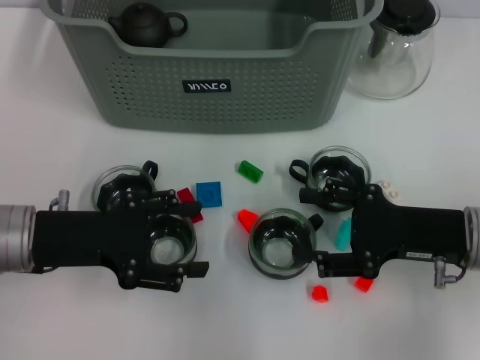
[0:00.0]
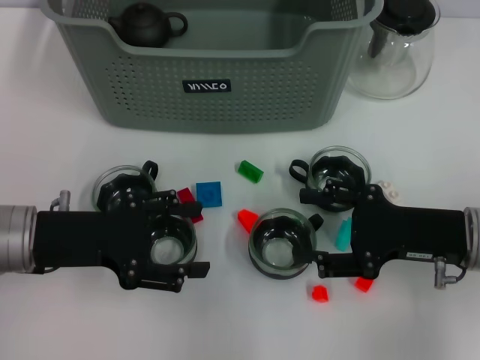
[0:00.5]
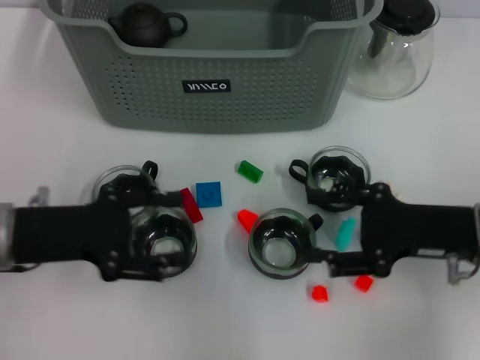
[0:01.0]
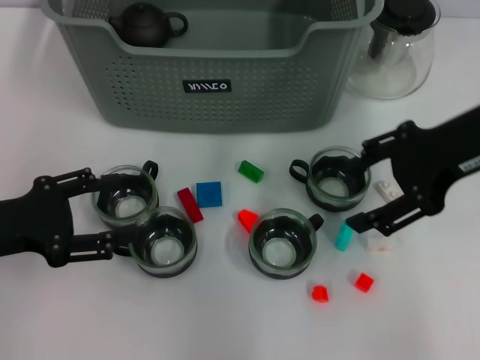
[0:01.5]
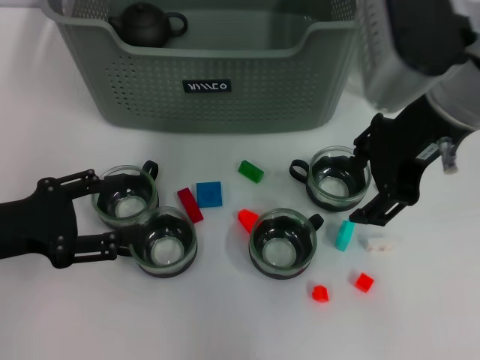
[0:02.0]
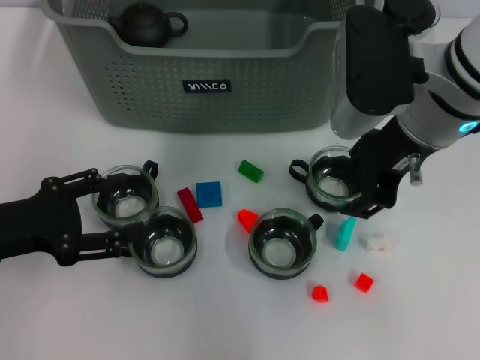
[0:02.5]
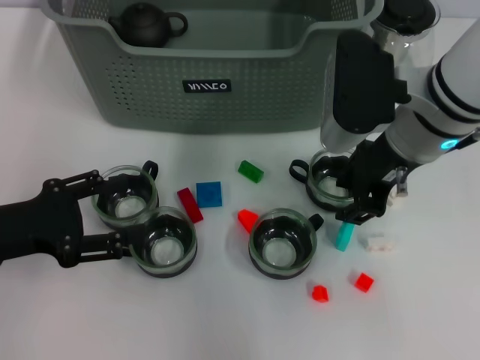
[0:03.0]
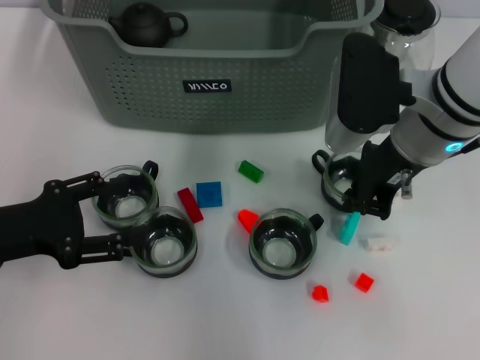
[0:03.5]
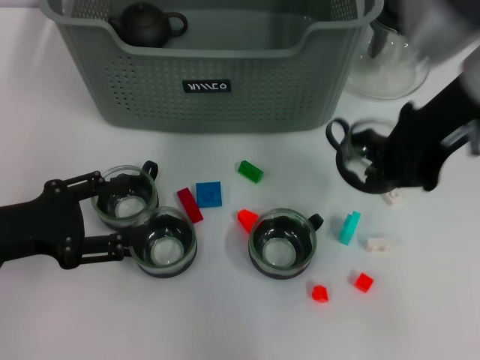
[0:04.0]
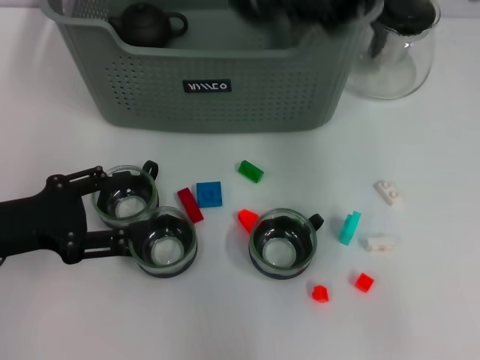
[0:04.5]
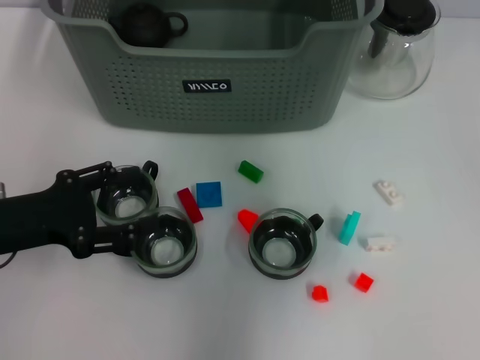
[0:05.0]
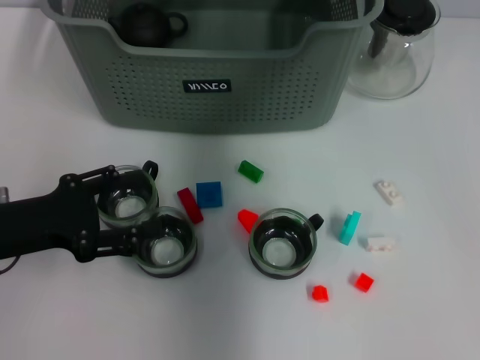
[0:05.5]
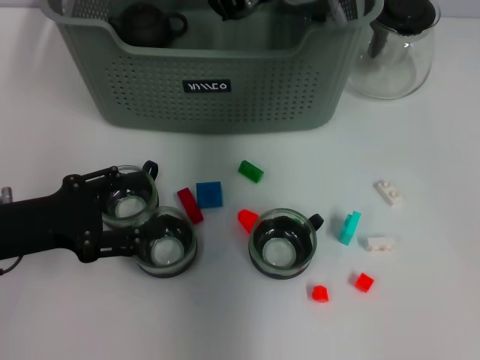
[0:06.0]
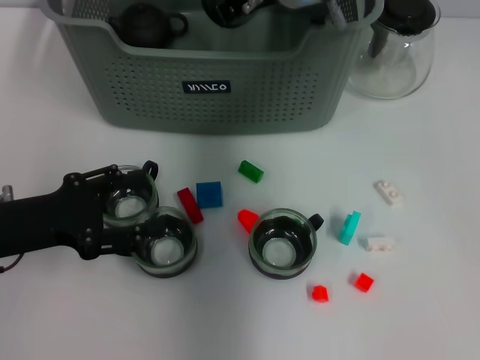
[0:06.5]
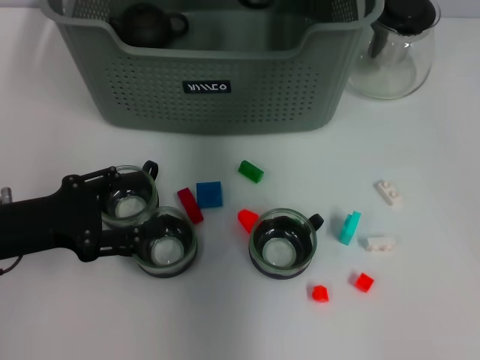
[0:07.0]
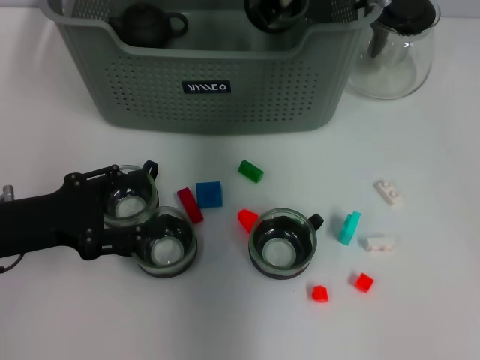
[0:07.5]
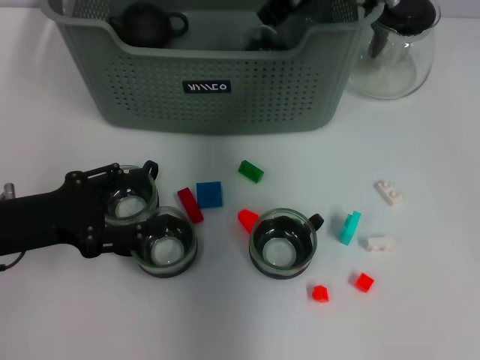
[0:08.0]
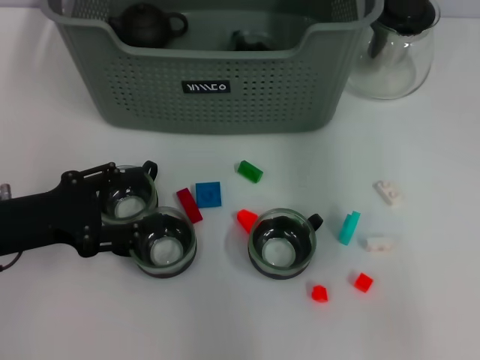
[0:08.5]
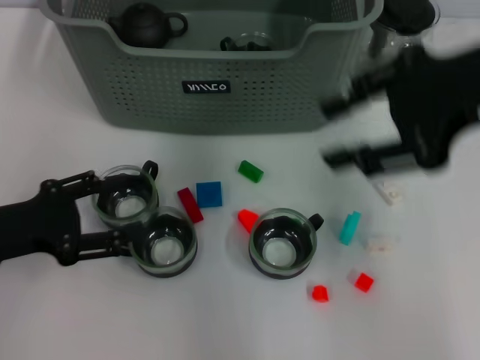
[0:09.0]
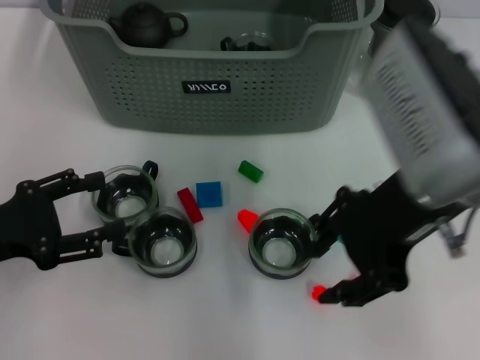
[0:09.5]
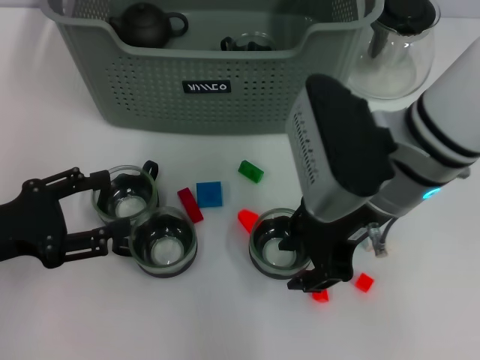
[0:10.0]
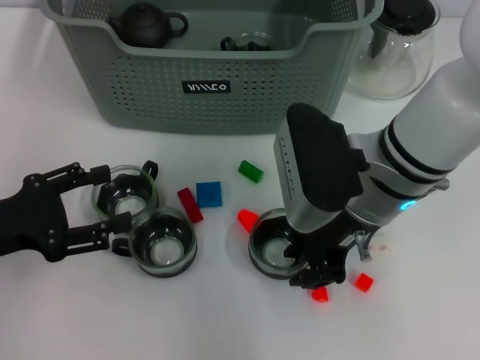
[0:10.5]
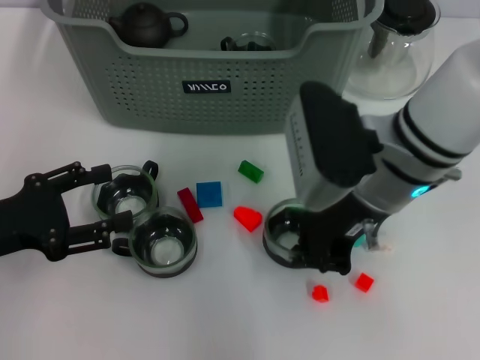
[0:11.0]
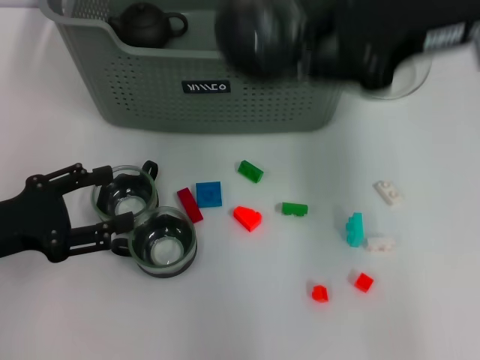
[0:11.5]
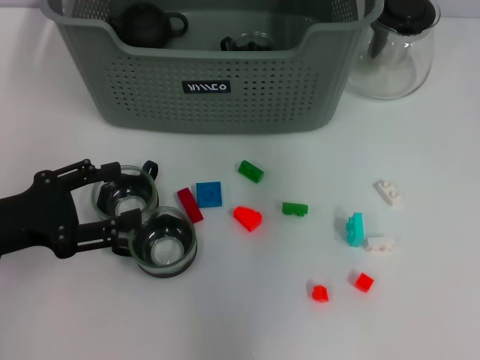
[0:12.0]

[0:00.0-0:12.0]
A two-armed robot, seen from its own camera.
Task of the whole recording: pick up the teacup on the table and place it into the storage bin, pick up the block on the table and place it into the storage bin.
Step, 0:00.0 to 0:03.5: Grasp the cup with right gripper.
Step, 0:04.0 to 0:08.0: Place the cup in the storage box with right gripper.
Step, 0:08.5 to 0:10.5: Grasp the cup with right gripper.
0:00.0 to 0:02.0: The left gripper is displaced to the left by roughly 5 cm. Meanwhile the right gripper is displaced upward, to the left and forward by about 20 cm.
0:02.0 to 0:04.0: The right gripper reaches about 10 cm downward, then returns, and closes its fingers.
0:04.0 to 0:06.0: The right gripper moves forward, to the left and downward, some 20 cm.
0:06.0 to 0:08.0: The grippers stay close to where they were, moving slightly.
0:08.0 to 0:10.0: The right gripper is displaced backward by approximately 20 cm, and opens its fingers.
0:10.0 to 0:12.0: The right gripper moves upward and forward, roughly 20 cm, and closes.

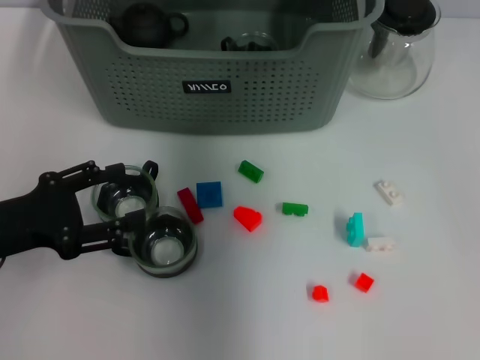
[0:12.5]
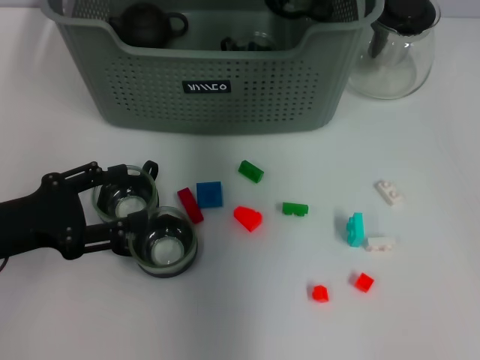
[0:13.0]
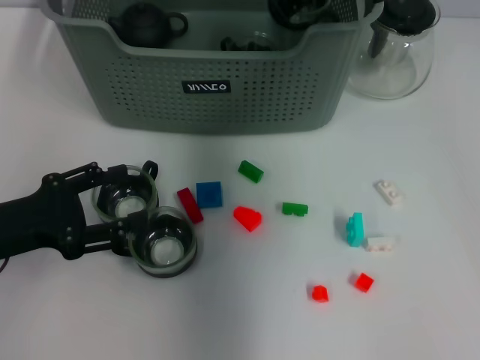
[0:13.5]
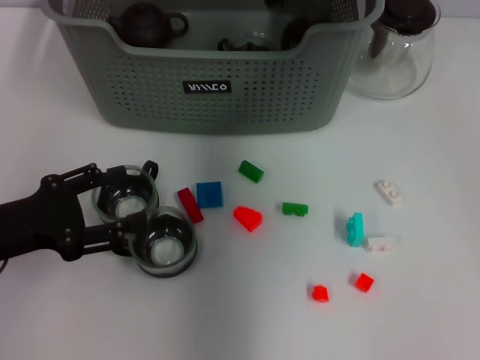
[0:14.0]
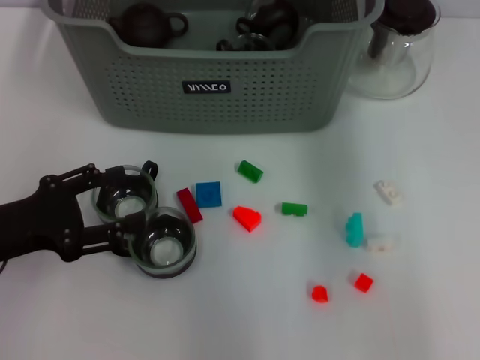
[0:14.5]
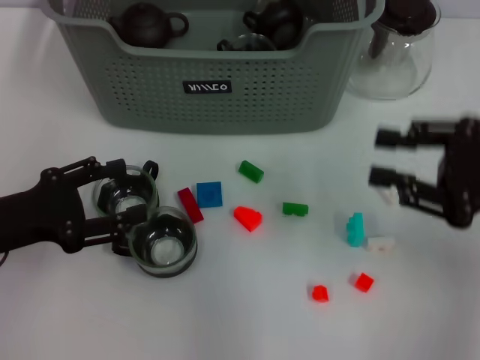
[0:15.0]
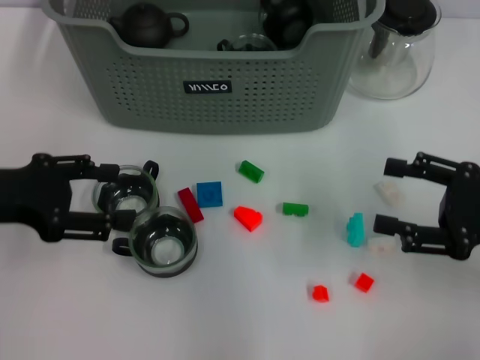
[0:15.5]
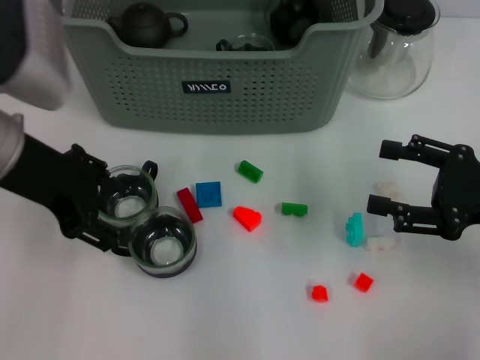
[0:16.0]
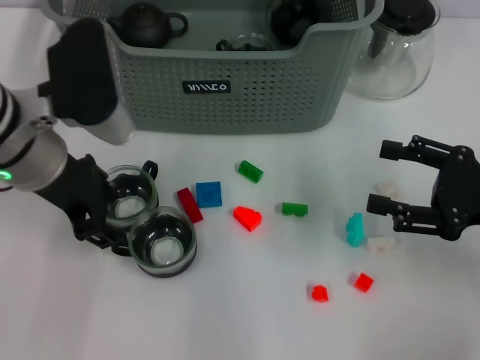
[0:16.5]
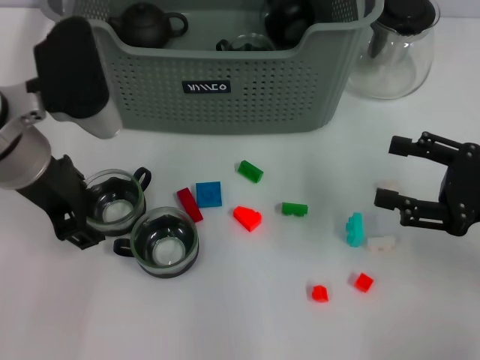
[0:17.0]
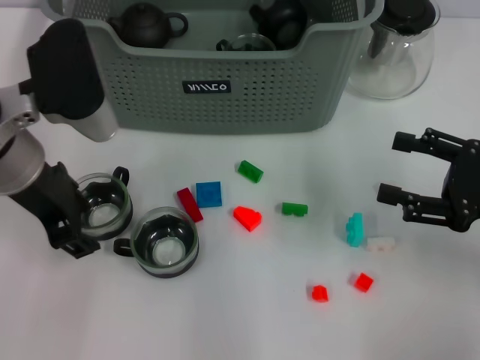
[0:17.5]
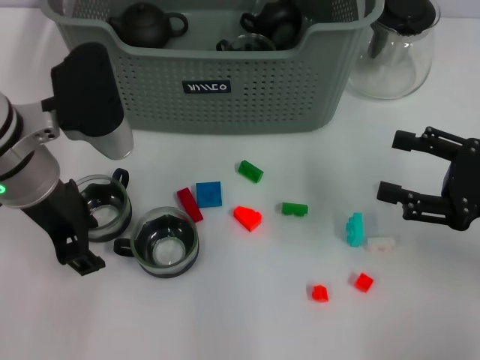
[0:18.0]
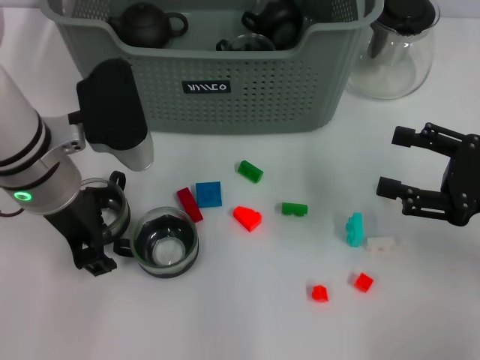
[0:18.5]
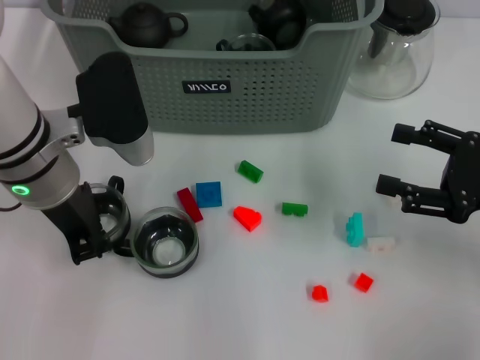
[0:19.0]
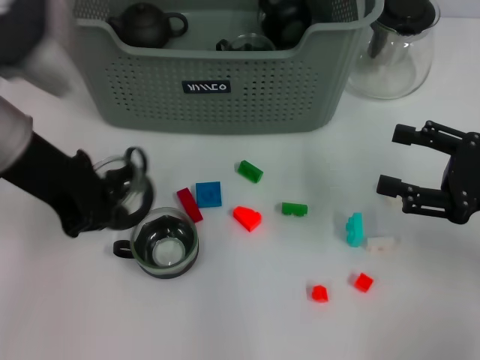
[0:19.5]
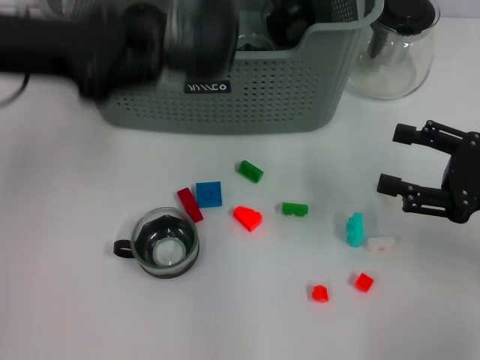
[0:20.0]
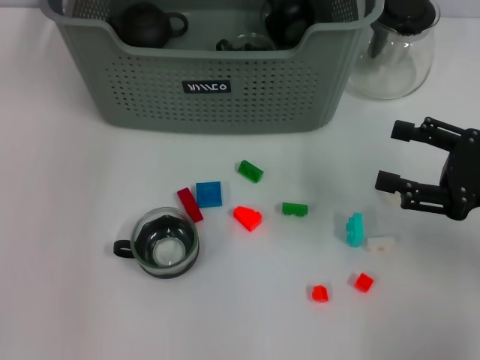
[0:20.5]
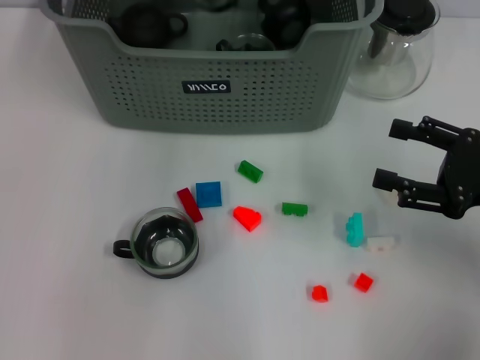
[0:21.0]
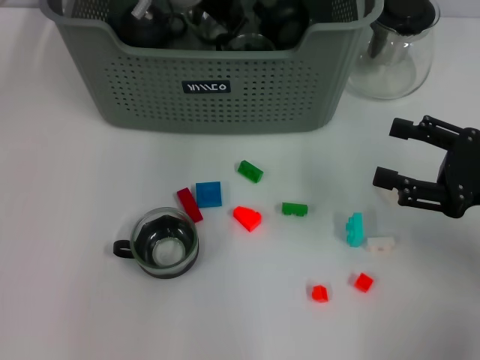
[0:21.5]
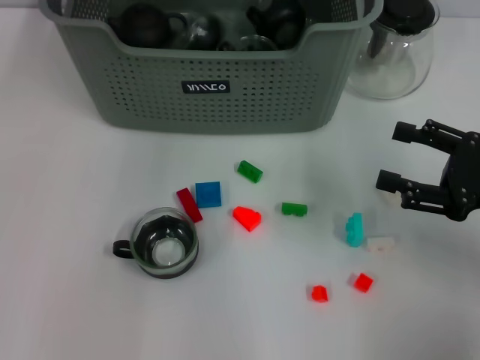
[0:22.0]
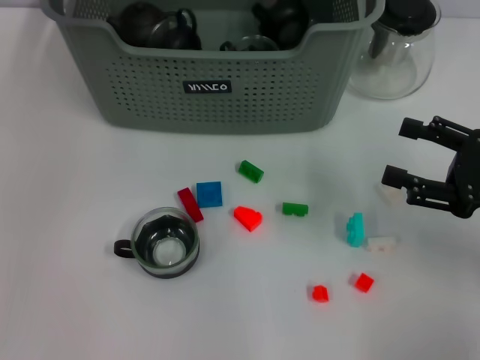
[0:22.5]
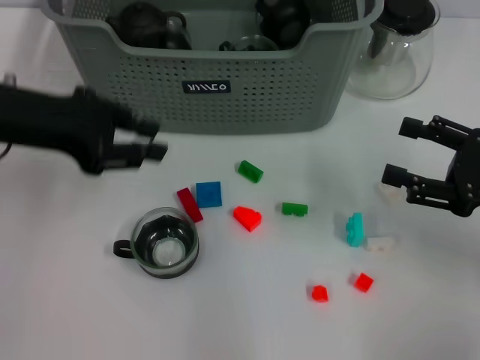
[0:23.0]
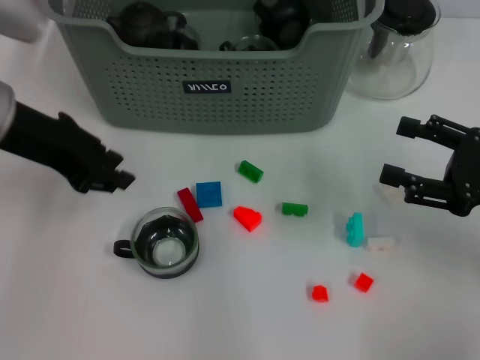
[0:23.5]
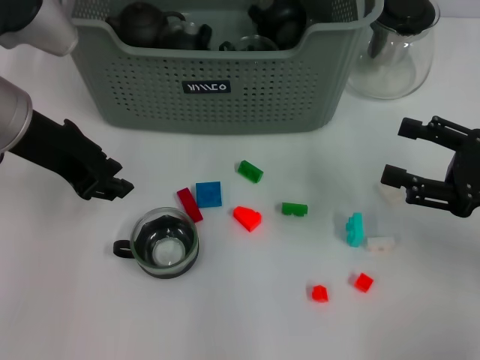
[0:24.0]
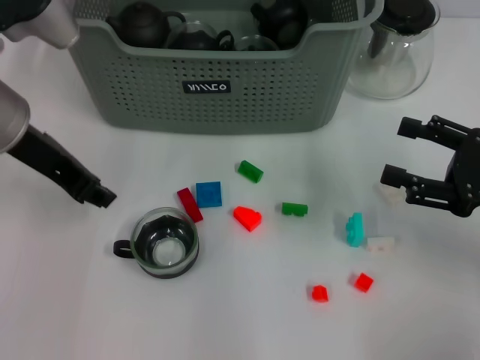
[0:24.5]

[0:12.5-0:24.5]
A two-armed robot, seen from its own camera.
Task of the whole recording: pick up the teacup on the table and place it into the storage bin, pick up the block on the table and place it into the storage bin.
Step, 0:14.0 to 0:19.0: Grasp the cup with left gripper.
Step, 0:19.5 to 0:21.5: Place the cup in the storage box with left gripper.
0:12.5 to 0:14.5: The right gripper is displaced to the right and backward by about 15 cm, and opens.
0:14.5 to 0:16.5: The left gripper travels to the right, upward and forward by about 15 cm. Meanwhile the right gripper heads downward, backward and to the right, covering roughly 25 cm, and opens its fingers.
0:16.5 to 0:18.5: The grippers make only small movements.
0:18.5 to 0:20.5: The left gripper travels forward and upward by some 20 cm, and closes up.
0:20.5 to 0:22.5: The left gripper heads backward, covering approximately 10 cm.
0:22.5 to 0:24.5: The left gripper heads downward, covering about 10 cm.

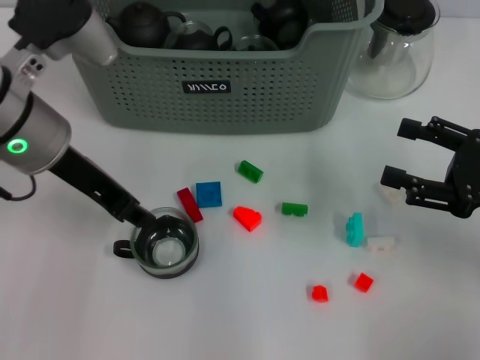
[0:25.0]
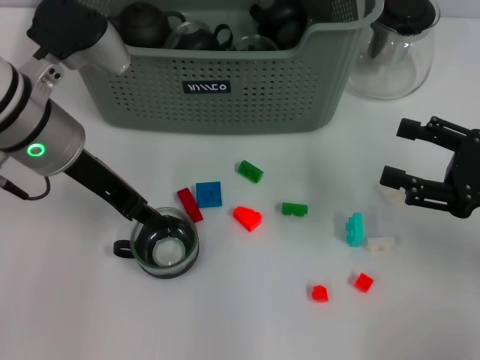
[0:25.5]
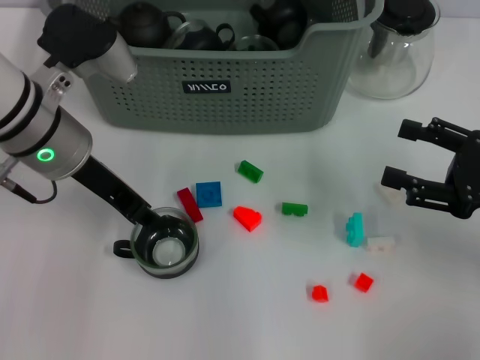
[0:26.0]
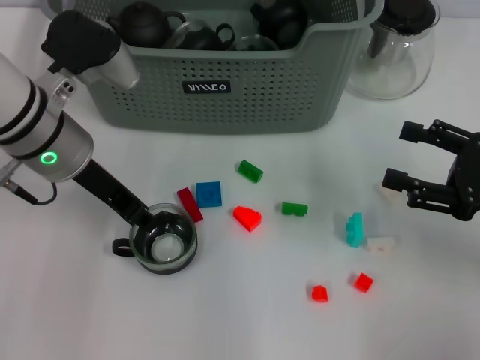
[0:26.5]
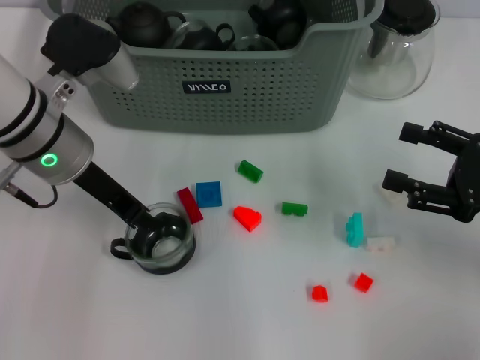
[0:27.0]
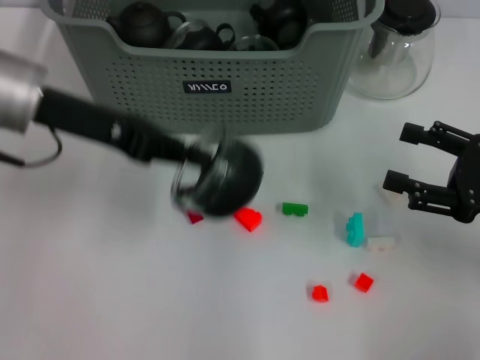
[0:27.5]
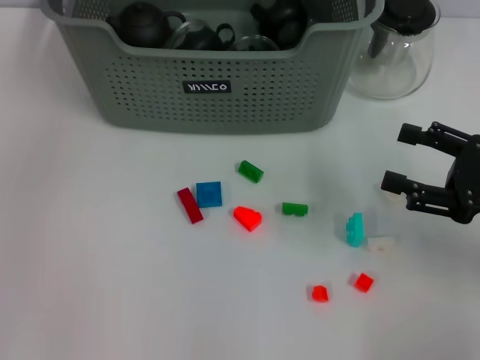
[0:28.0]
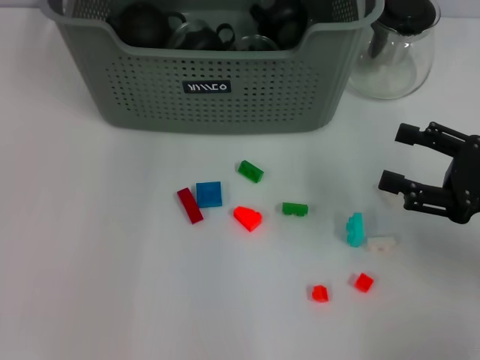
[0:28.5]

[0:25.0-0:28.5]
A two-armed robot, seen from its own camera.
Task of the whole recording: pick up the teacup on the table and place it into the storage bin, pick up the block on the table and place it into the storage bin.
Step, 0:25.0 to 0:27.0: Grasp the cup with left gripper.
0:25.0 to 0:27.0: The grippers make only small movements.
0:27.0 to 0:28.5: The left gripper moves upward, forward and to the right, about 20 cm.
